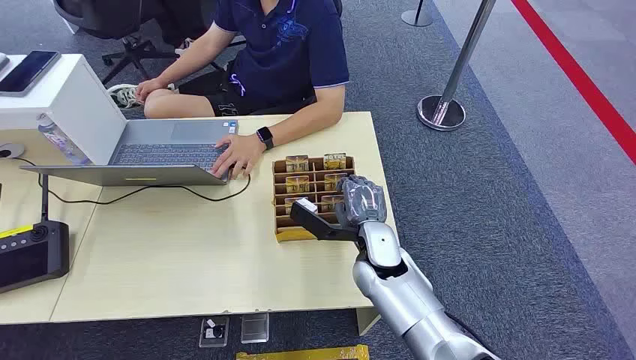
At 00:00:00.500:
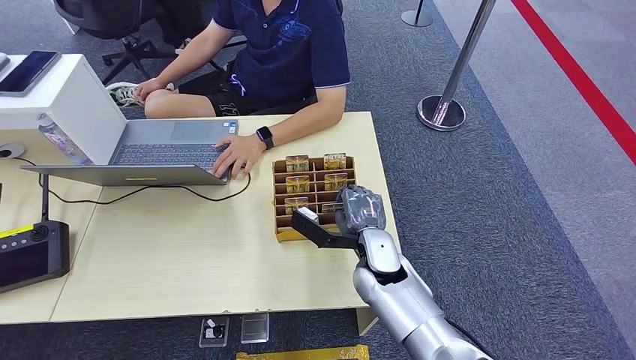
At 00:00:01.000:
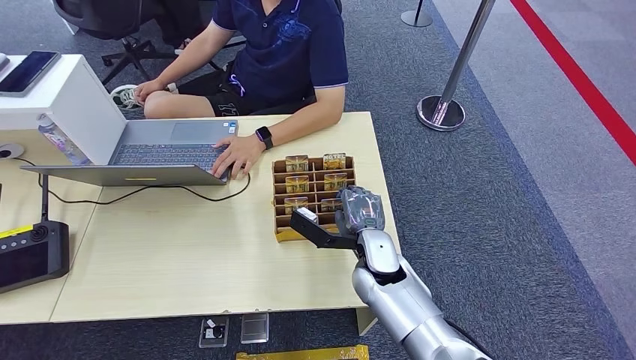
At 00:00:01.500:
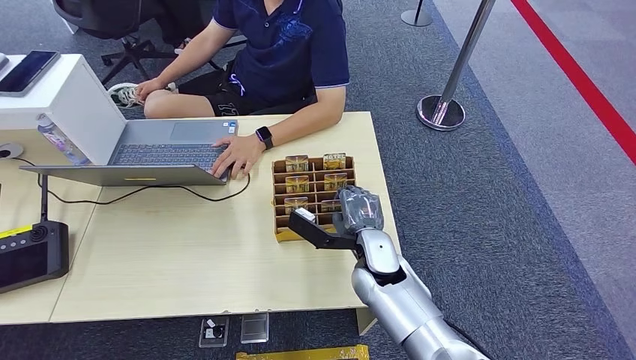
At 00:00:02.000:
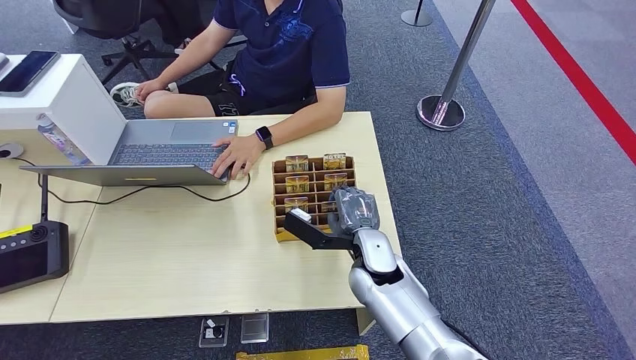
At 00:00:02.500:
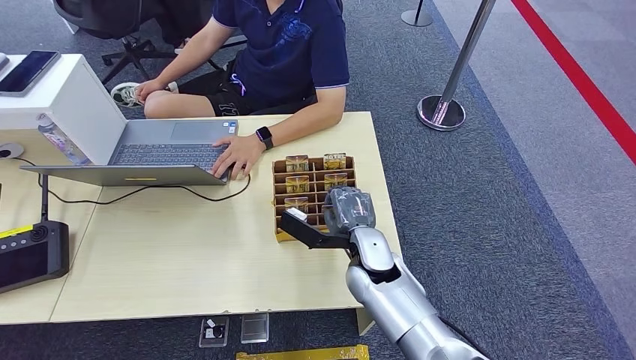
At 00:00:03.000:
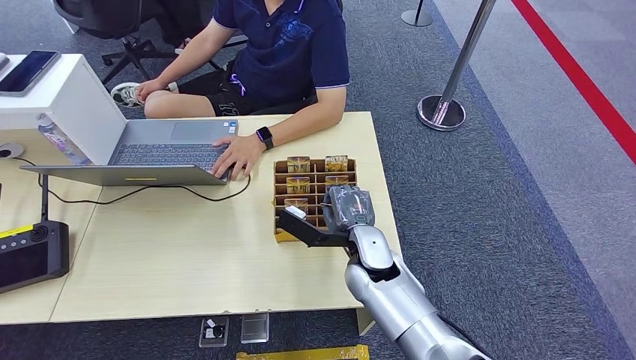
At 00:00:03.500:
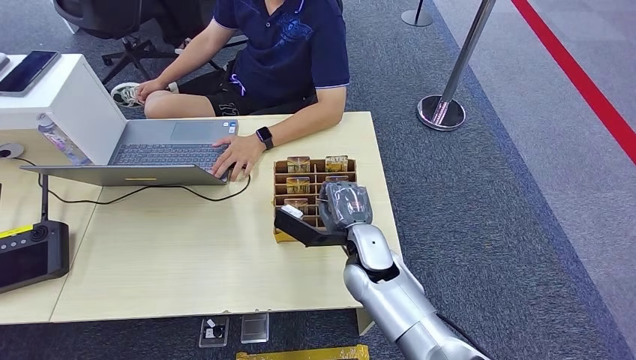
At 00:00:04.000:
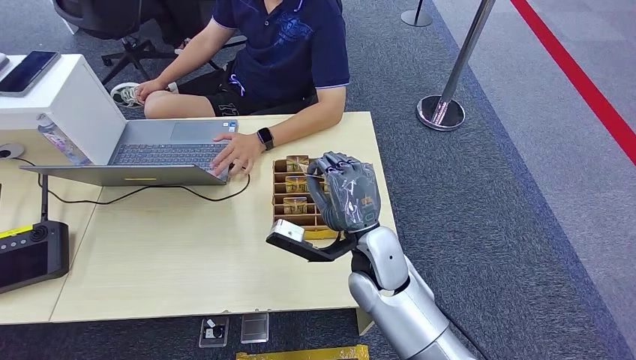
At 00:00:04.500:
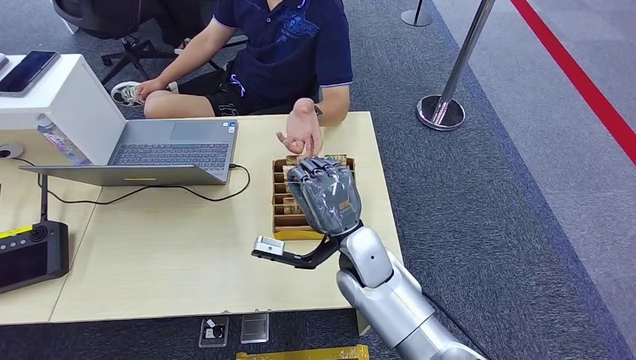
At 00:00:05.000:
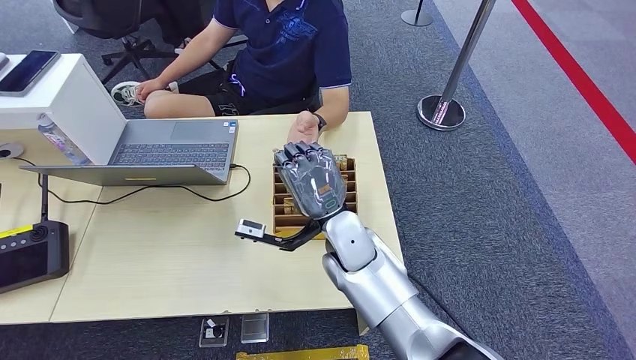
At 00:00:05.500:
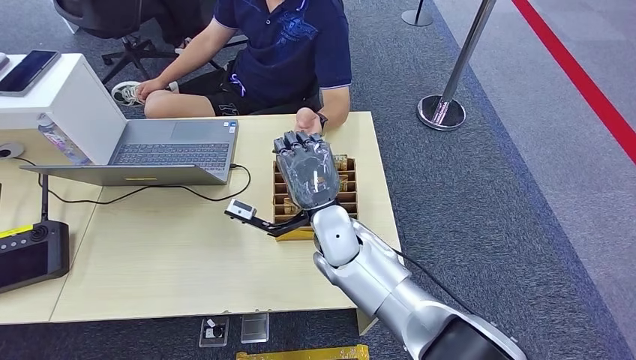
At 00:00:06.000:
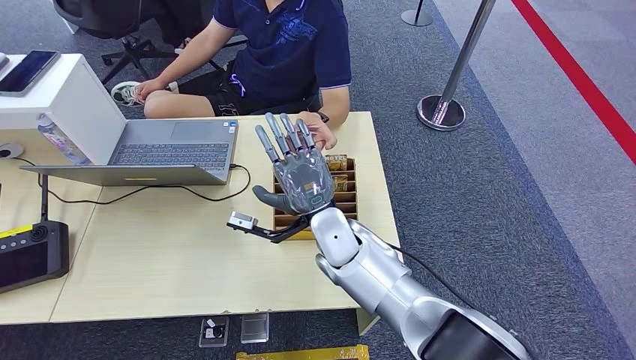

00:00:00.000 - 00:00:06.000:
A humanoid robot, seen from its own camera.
Step, 00:00:00.000 - 00:00:04.500: Pick up the room card from the card holder.
Step, 00:00:05.000 - 00:00:06.000: Hand the room card to the target.
00:00:02.000 - 00:00:04.000: The right hand moves upward, some 5 cm.
00:00:04.000 - 00:00:06.000: The right hand is displaced to the left by about 5 cm.
